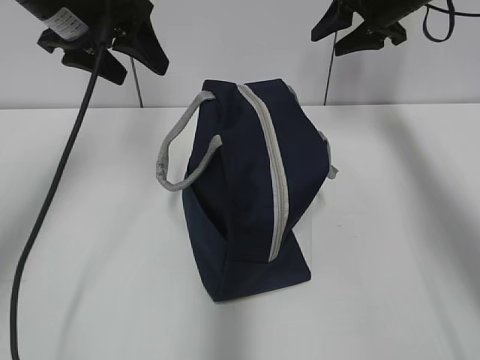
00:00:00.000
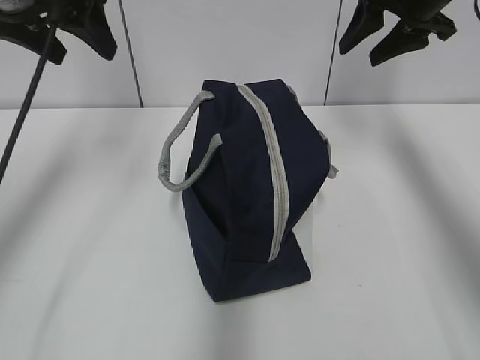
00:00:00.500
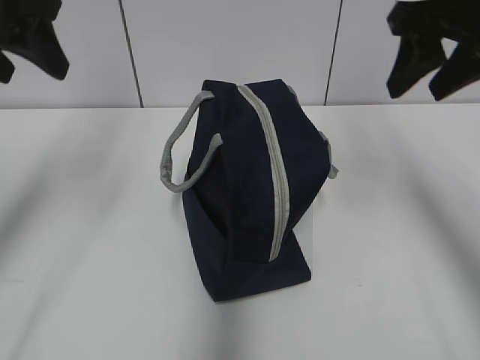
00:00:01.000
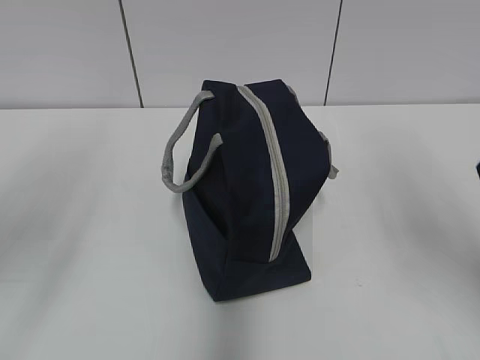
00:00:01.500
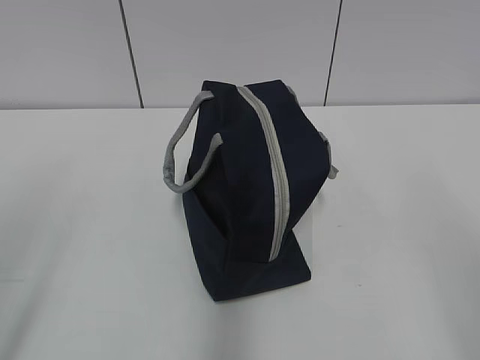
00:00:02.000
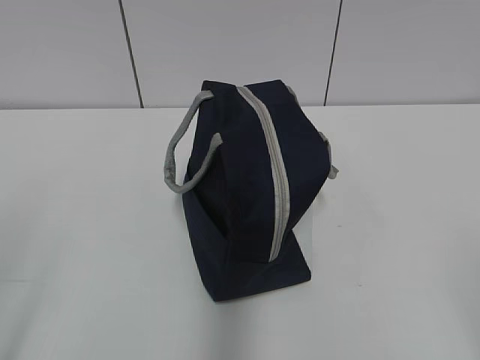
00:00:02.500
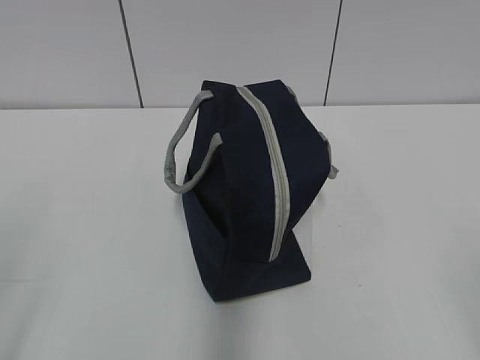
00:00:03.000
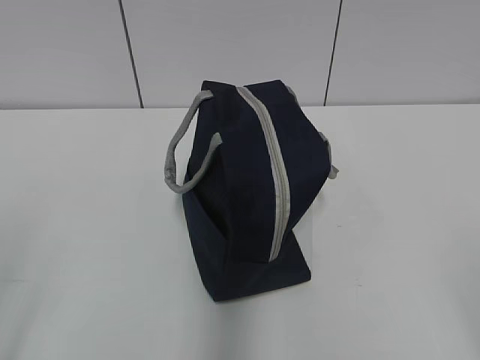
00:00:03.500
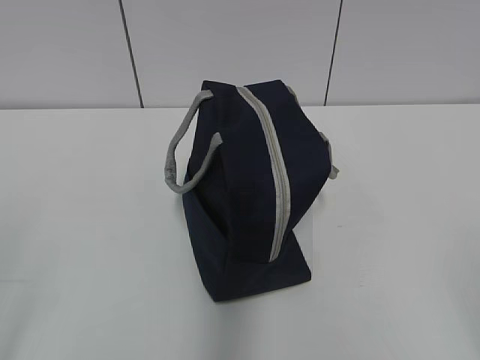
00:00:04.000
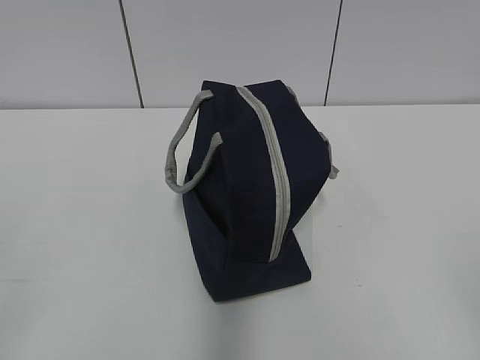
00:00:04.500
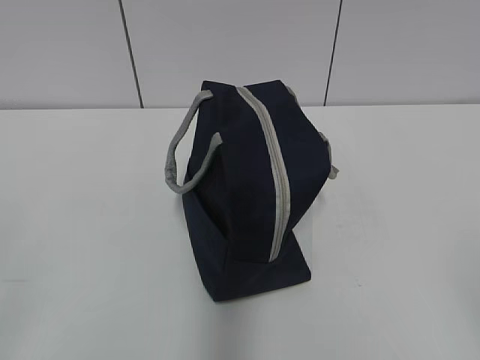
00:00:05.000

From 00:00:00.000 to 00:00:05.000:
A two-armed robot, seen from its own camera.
From 00:00:00.000 to 00:00:02.500: The right gripper heads backward, covering approximately 50 cm, while the left gripper shifts roughly 35 cm backward.

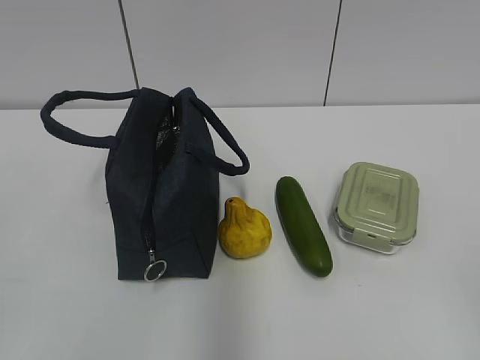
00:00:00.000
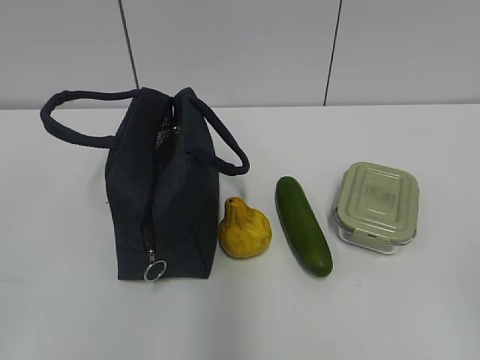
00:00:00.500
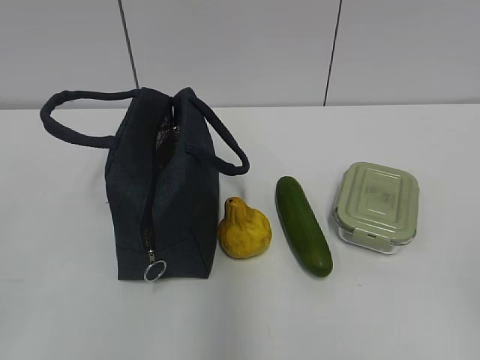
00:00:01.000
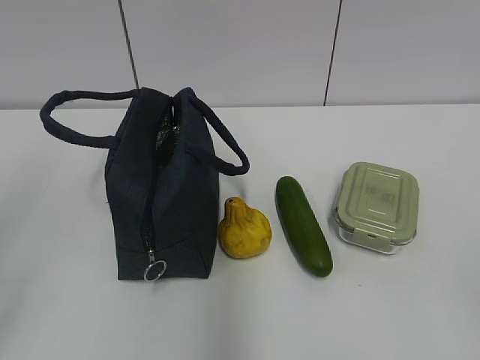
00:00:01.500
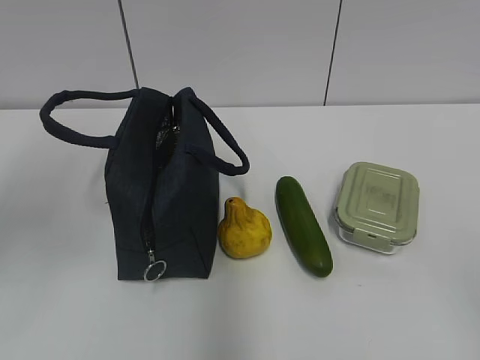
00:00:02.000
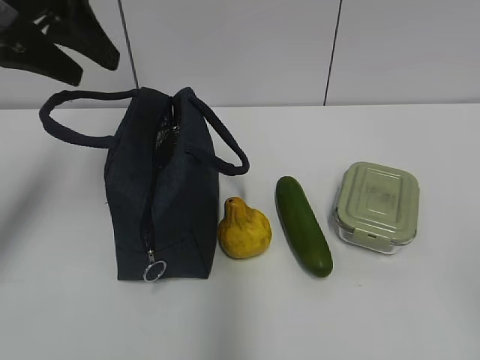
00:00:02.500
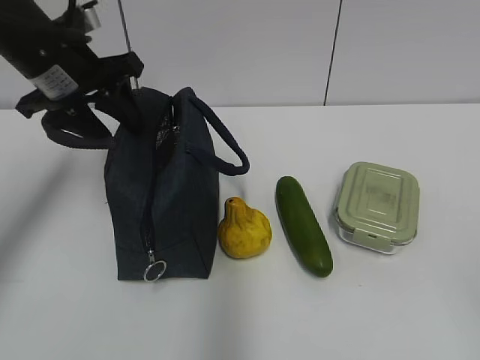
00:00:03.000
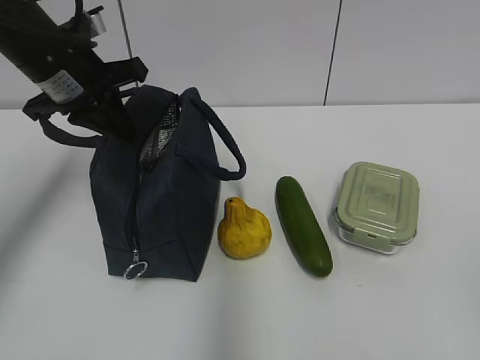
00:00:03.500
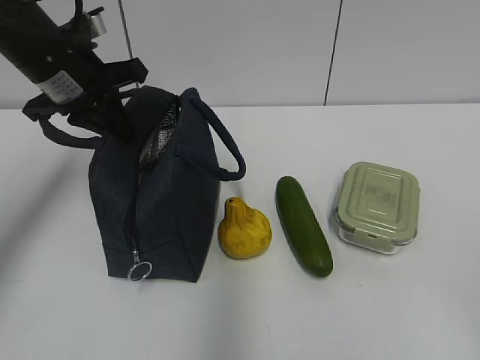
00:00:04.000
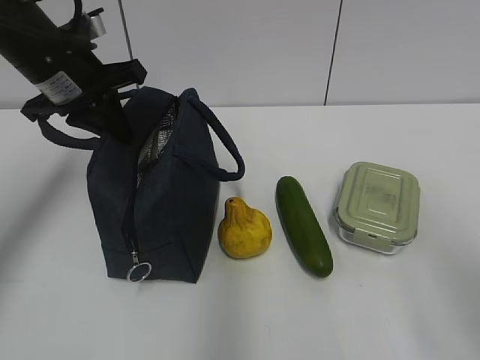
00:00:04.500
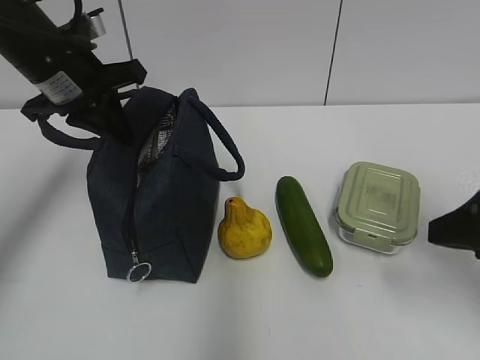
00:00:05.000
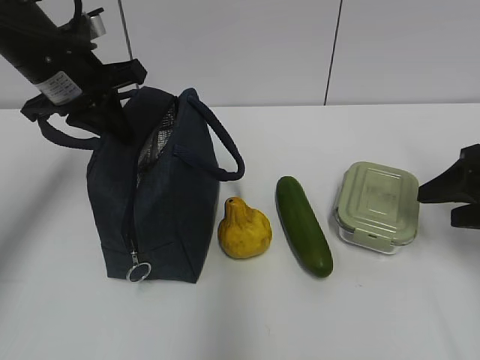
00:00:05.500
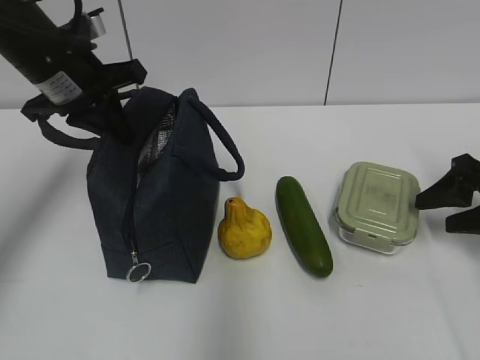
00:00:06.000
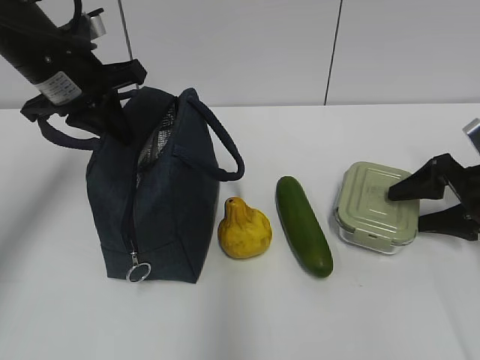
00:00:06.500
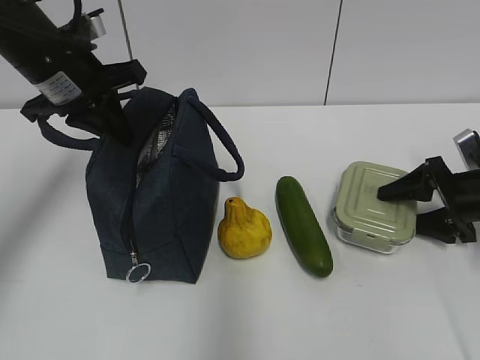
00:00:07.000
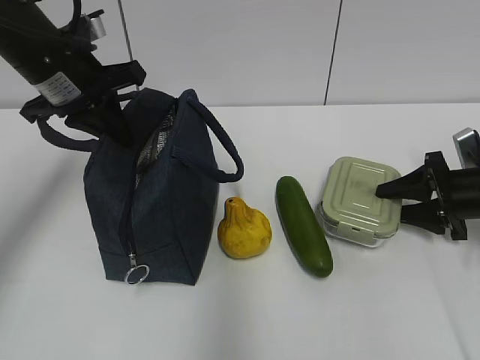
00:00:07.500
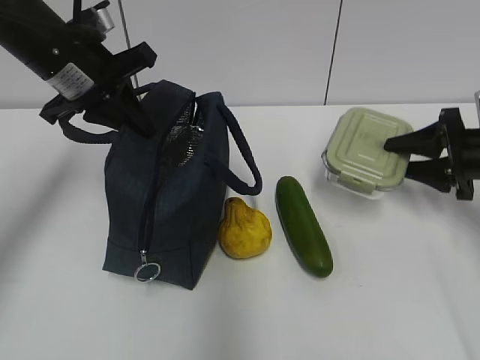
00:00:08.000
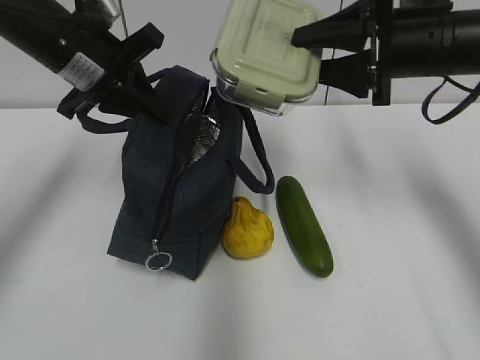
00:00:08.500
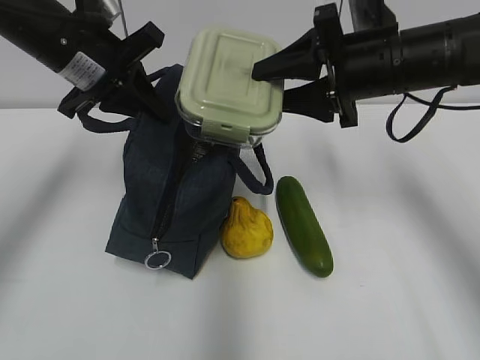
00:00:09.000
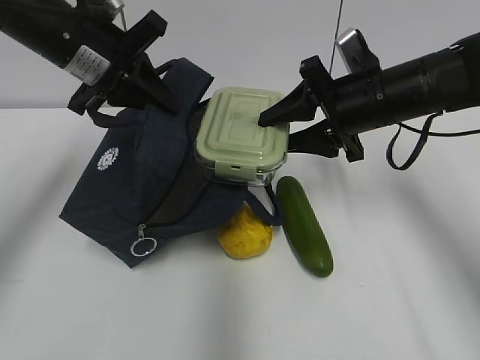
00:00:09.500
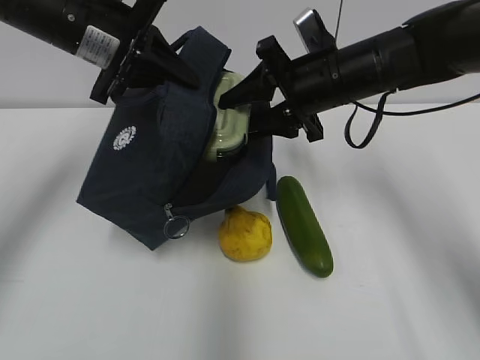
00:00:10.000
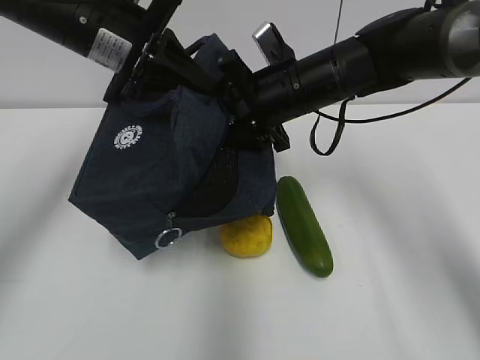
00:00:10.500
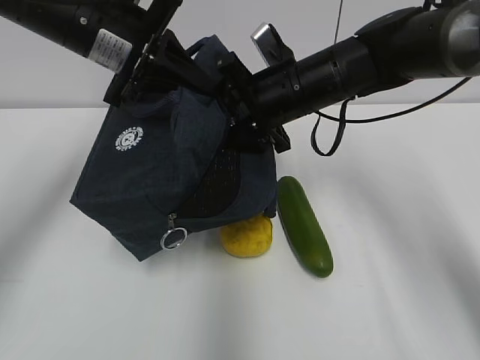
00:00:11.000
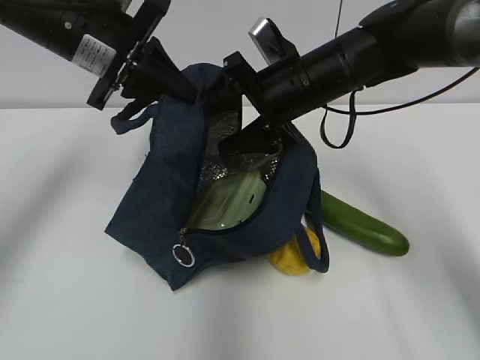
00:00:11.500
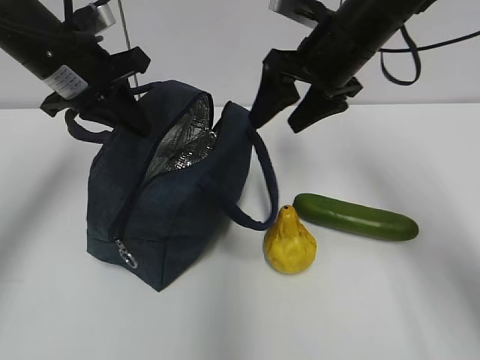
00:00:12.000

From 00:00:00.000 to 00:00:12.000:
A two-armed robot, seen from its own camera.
Step, from 00:00:00.000 to 00:00:07.000: Grab the lunch box with your right hand.
Step, from 00:00:09.500 to 00:00:11.000: Place it into the bag with your right hand.
From 00:00:02.000 to 00:00:04.000: The left gripper heads forward and downward, covering about 20 cm, and closes its fingers.
From 00:00:04.000 to 00:00:06.000: The right gripper is displaced forward by about 30 cm.
From 00:00:06.000 to 00:00:08.000: The right gripper moves forward, roughly 5 cm.
From 00:00:08.000 to 00:00:10.000: The right gripper travels to the left and upward by some 20 cm.

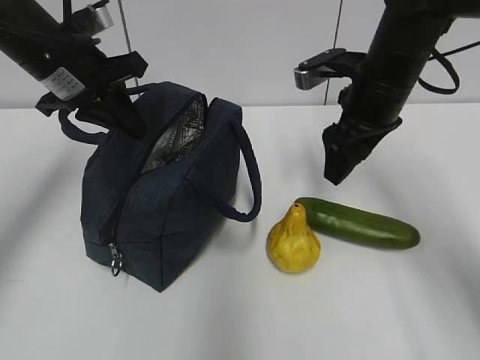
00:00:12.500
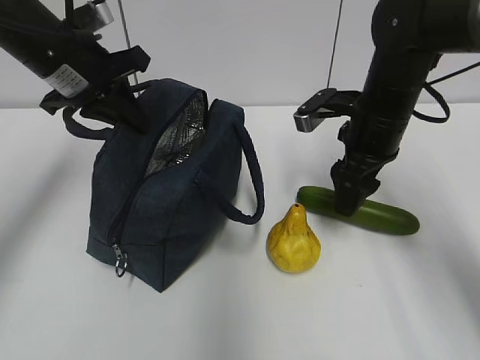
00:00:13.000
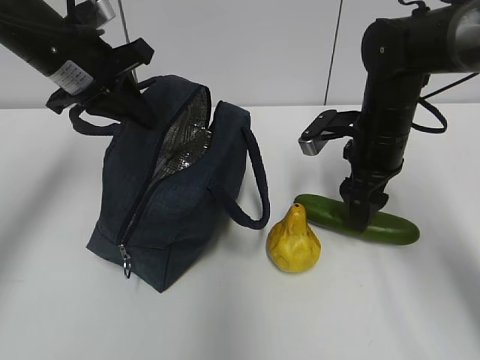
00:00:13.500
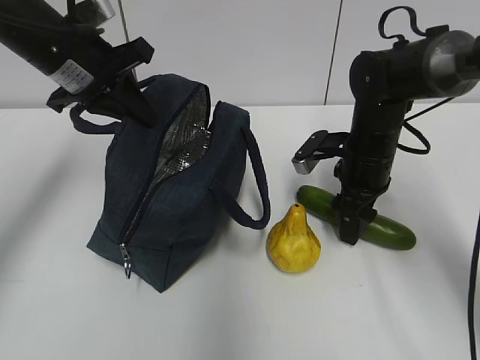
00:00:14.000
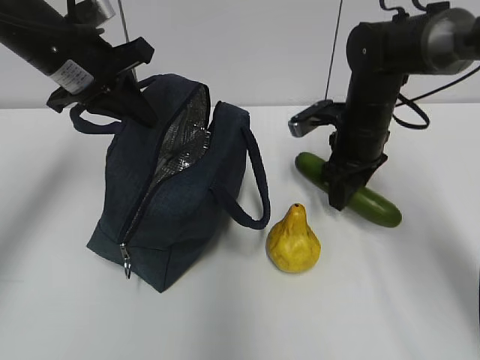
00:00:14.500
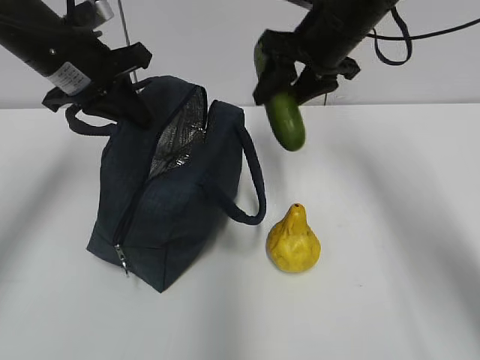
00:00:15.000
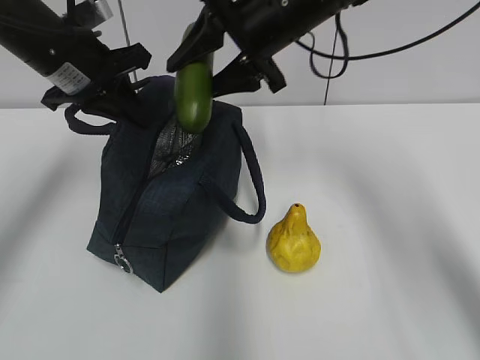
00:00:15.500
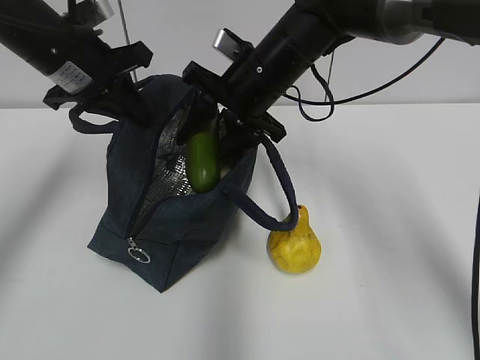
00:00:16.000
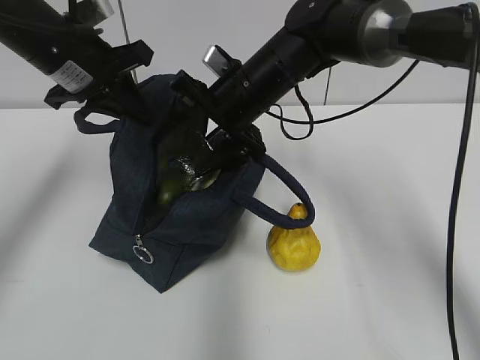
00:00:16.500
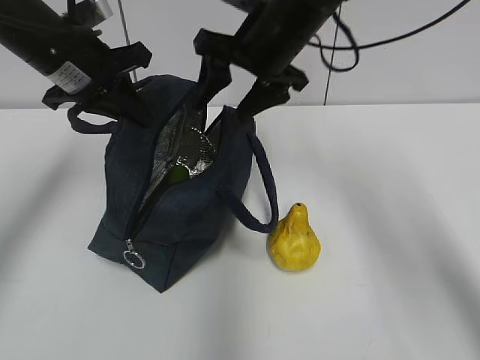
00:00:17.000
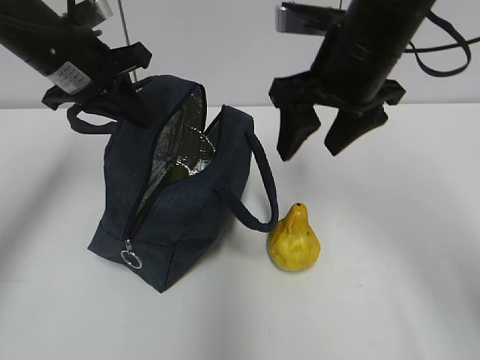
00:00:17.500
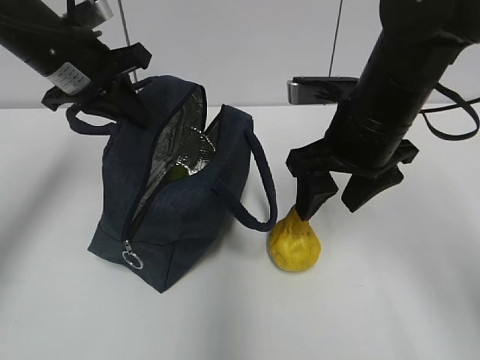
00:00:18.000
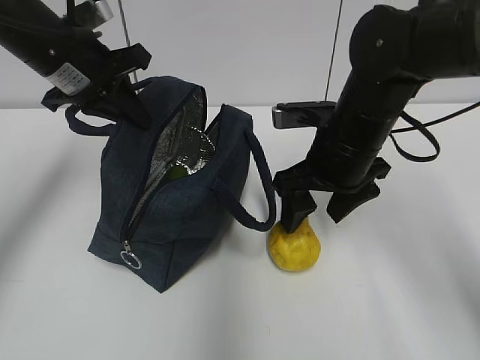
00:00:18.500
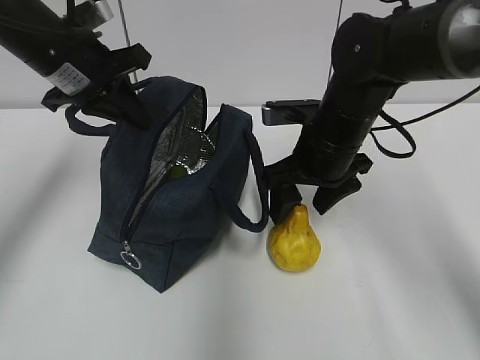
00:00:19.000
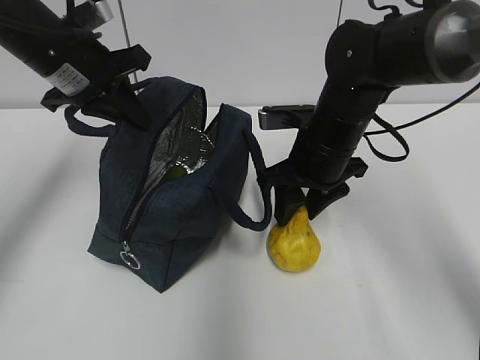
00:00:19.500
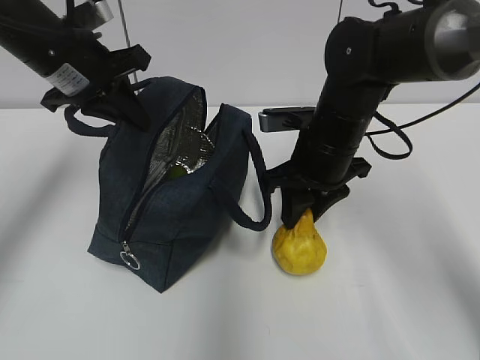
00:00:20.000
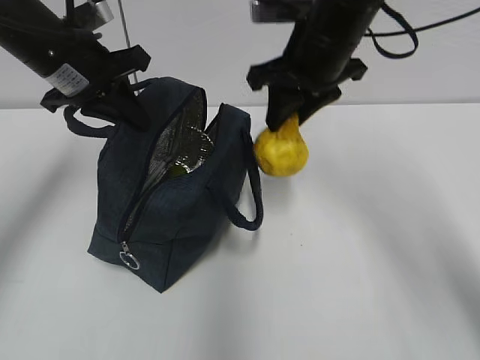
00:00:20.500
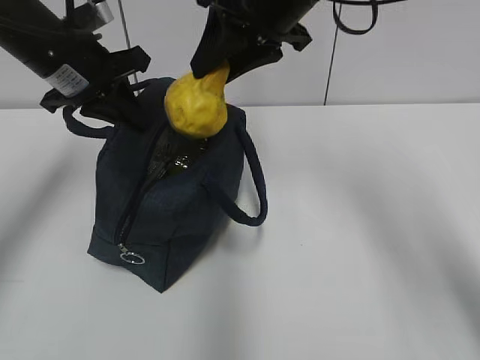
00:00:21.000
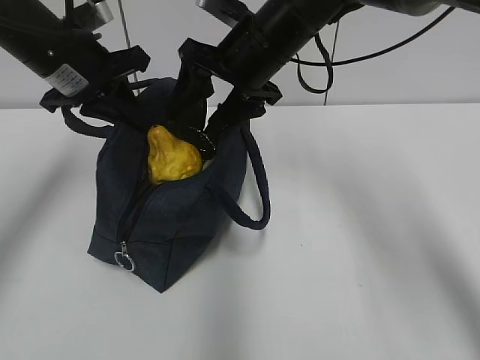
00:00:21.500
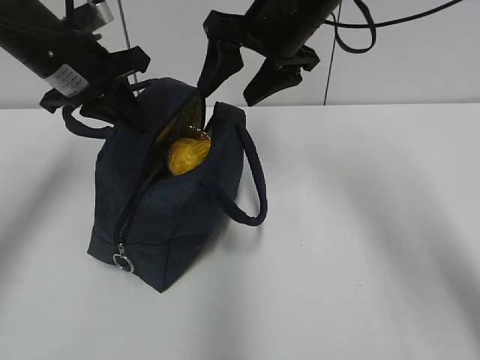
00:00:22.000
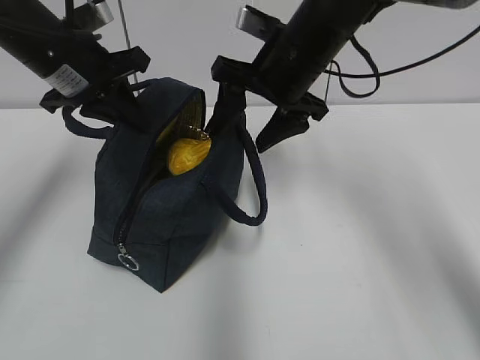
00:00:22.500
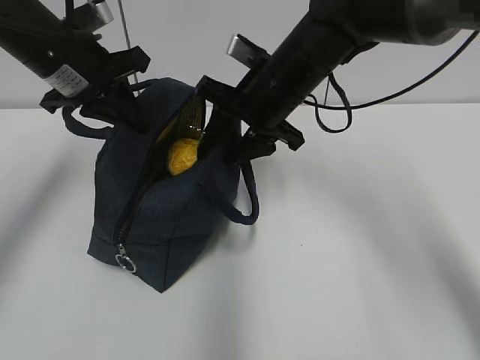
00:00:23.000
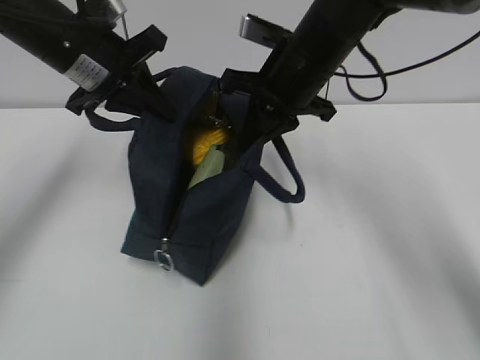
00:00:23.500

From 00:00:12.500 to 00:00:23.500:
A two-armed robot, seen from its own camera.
Step, from 00:00:12.500 to 00:00:14.000: Grab the cucumber with your right hand.
Step, from 00:00:14.500 to 00:00:16.500: Place it into the bag with your right hand.
Step, from 00:00:17.000 to 00:00:19.500: Grab the pear with your right hand.
Step, from 00:00:22.000 to 00:00:23.000: Grab the lunch bag with your right hand.
From 00:00:12.500 to 00:00:14.500: The right gripper moves downward, some 5 cm.
From 00:00:14.500 to 00:00:16.000: The right gripper shifts approximately 15 cm to the left and upward.
From 00:00:16.000 to 00:00:18.000: The right gripper goes some 15 cm backward and to the right.
From 00:00:18.000 to 00:00:20.000: The right gripper shifts roughly 5 cm downward, and closes.
From 00:00:20.000 to 00:00:21.500: The right gripper goes roughly 10 cm upward and to the left, and opens up.
From 00:00:21.500 to 00:00:23.500: The right gripper goes up and down, some 10 cm each way, reversing 2 times, and closes.
